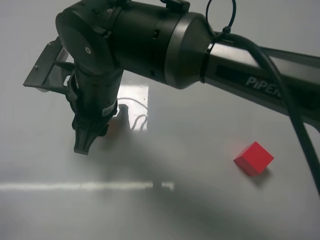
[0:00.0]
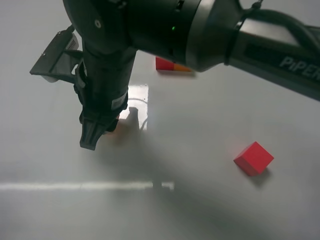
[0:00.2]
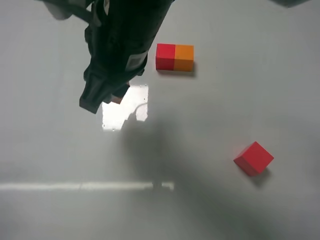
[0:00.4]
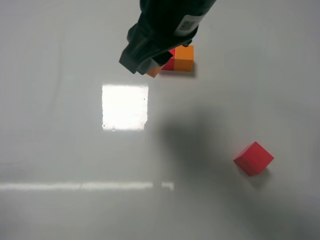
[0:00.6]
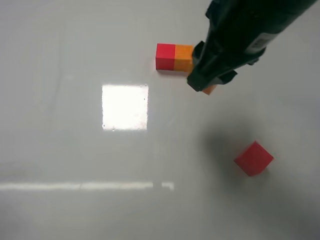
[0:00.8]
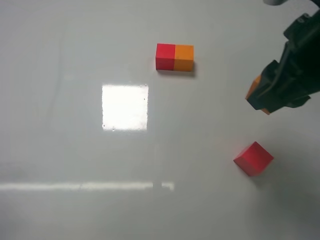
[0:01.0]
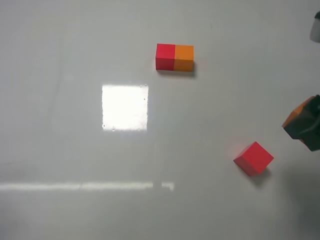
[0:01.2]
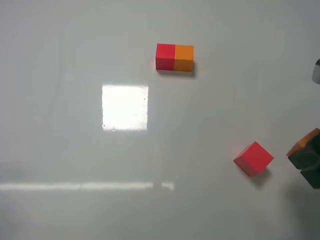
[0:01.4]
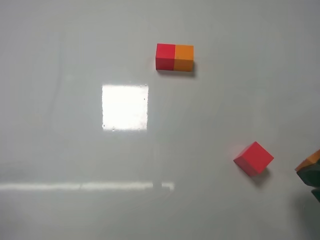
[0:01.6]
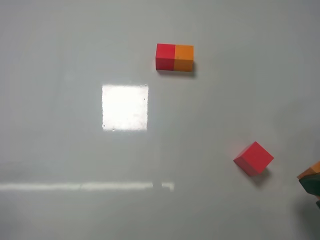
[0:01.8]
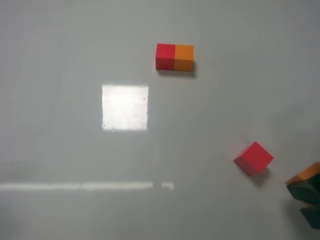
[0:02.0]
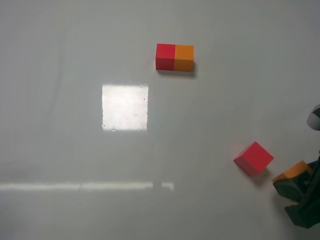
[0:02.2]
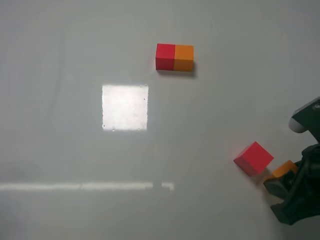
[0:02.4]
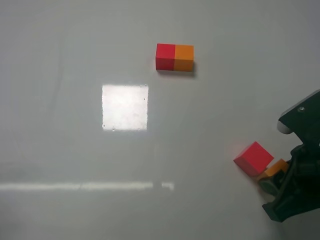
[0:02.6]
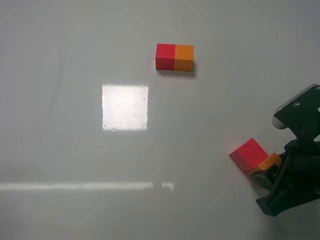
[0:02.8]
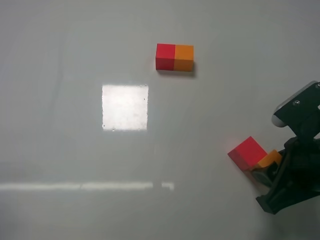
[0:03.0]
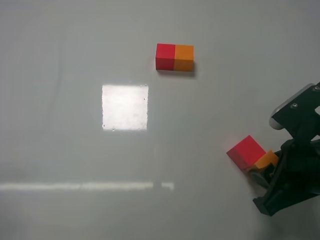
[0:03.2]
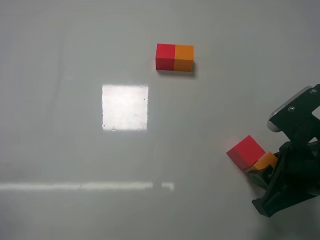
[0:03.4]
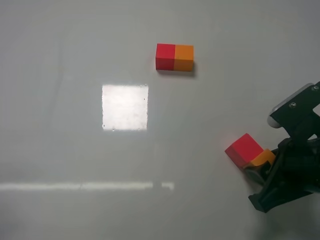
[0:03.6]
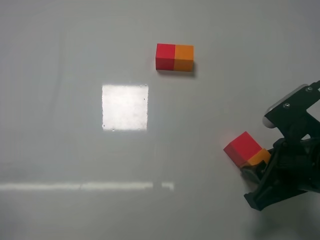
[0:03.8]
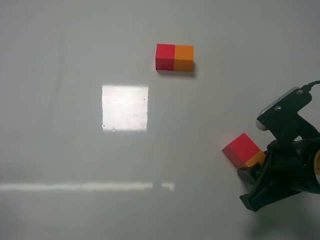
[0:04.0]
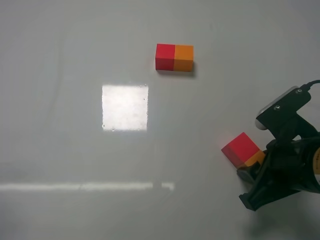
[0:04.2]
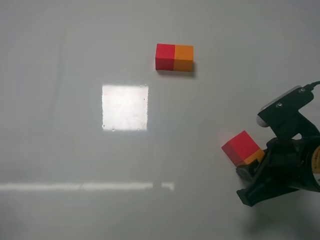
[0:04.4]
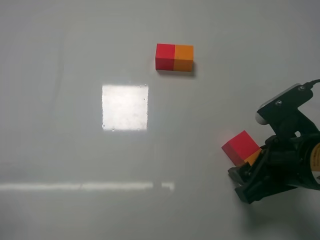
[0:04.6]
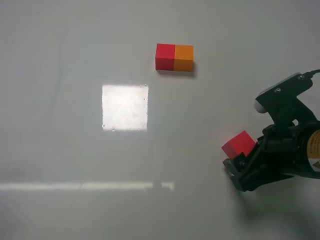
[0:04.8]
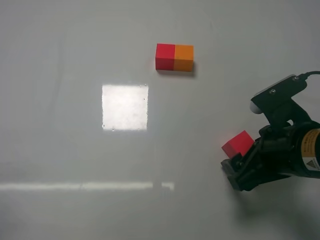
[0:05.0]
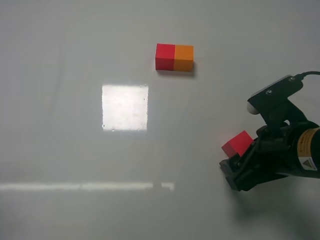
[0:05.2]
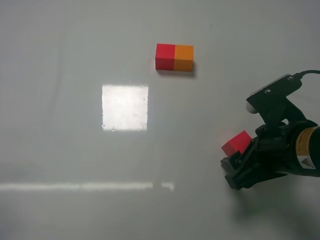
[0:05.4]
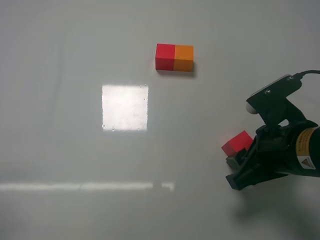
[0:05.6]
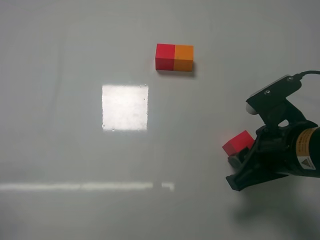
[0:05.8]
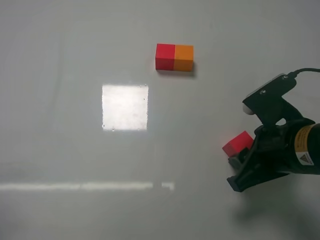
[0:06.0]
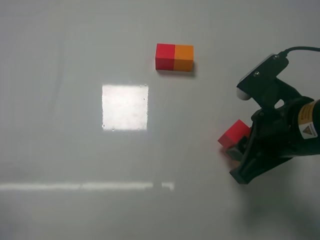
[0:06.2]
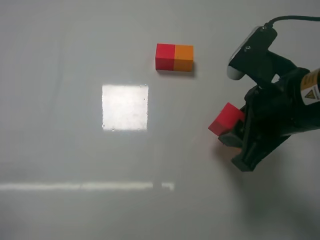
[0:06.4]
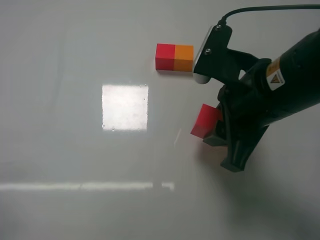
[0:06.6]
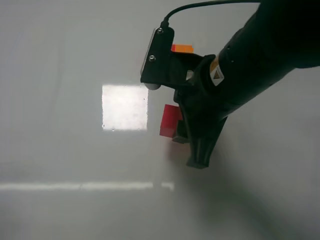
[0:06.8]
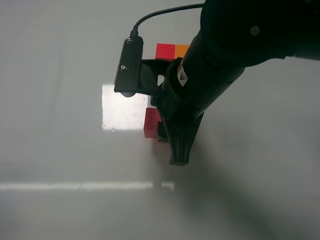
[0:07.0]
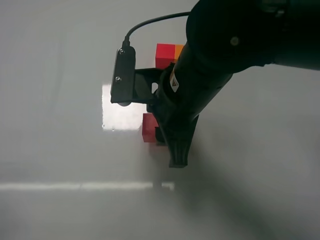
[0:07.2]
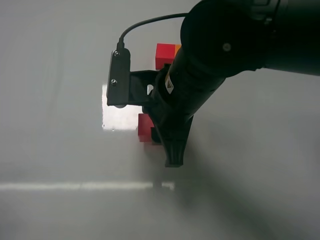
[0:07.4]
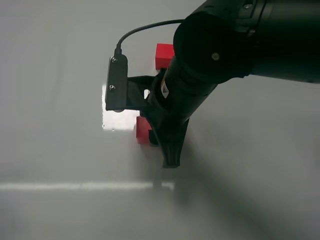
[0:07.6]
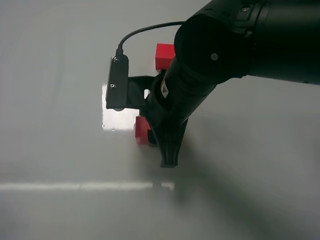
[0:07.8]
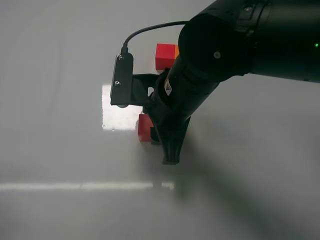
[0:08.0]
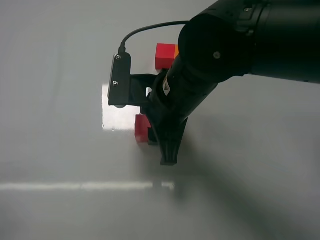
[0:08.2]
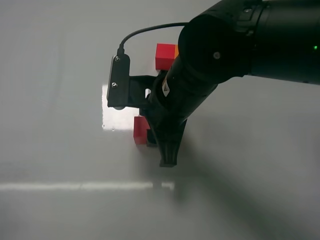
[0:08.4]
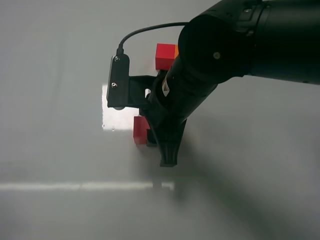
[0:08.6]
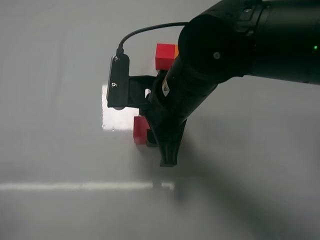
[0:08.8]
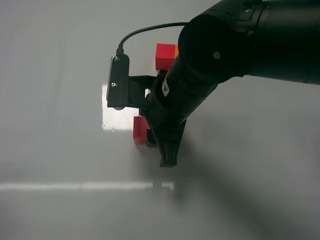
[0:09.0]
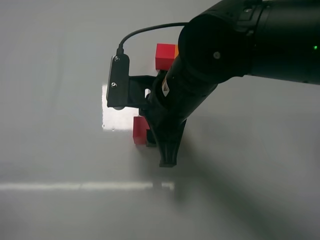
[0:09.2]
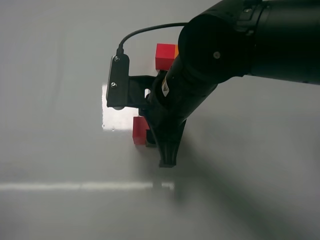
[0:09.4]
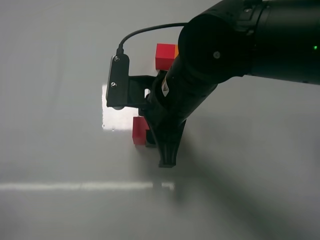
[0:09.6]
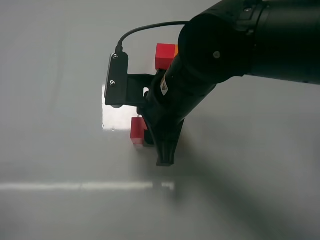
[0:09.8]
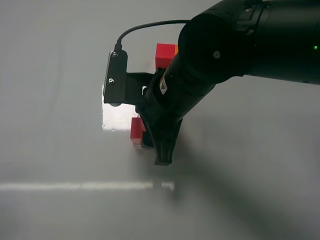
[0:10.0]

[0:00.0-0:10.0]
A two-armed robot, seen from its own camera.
Task of the whole recording: According to the building block template in front, assemble the scattered blocks together.
Step, 0:00.0 to 0:04.4: Put the orange cube on the right of the red cube with the right gripper.
0:00.0 to 0:01.4: The right gripper goes roughly 30 cm to the right.
0:01.4 to 0:02.8: The right gripper moves downward, roughly 5 cm.
0:02.8 to 0:04.2: The grippers stay close to where they were, moving slightly.
0:04.2 to 0:05.8: The right gripper opens and closes again.
0:05.8 to 0:07.2: The right gripper moves to the left and upward, approximately 15 cm.
0:07.2 to 0:08.6: The grippers make only small movements.
0:08.6 to 0:10.0: The right gripper opens up.

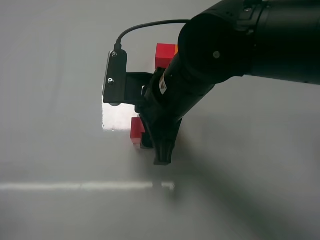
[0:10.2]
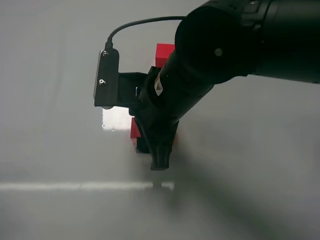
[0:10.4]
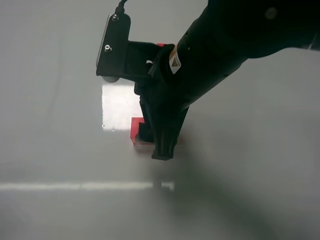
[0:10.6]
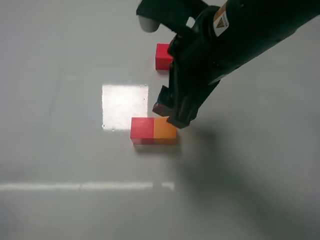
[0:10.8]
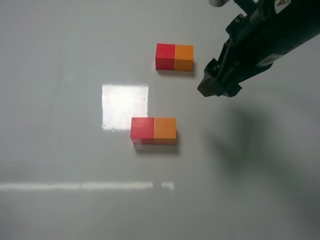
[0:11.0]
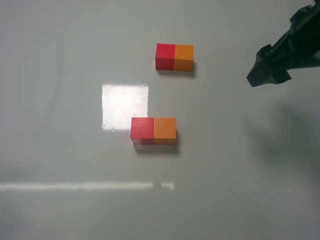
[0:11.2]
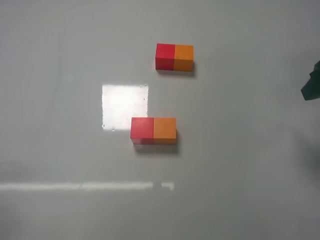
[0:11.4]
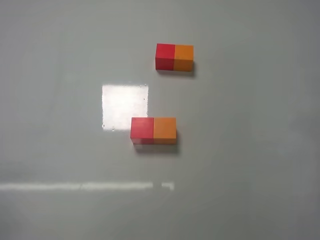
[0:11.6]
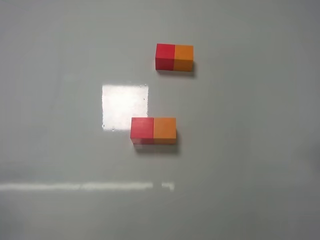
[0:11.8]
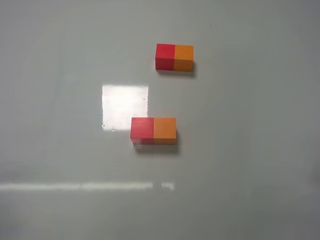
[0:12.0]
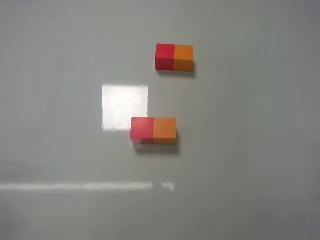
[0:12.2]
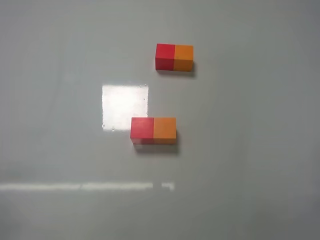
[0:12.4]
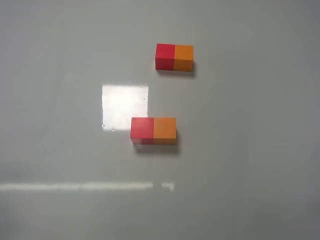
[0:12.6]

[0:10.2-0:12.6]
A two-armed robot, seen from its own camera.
Task of the whole recording: According to the building block template in front, assemble the scattered blocks together.
0:10.2 to 0:11.4: The right gripper heads to the right, covering some 25 cm.
0:11.4 to 0:12.6: The right gripper goes approximately 25 cm backward and downward.
